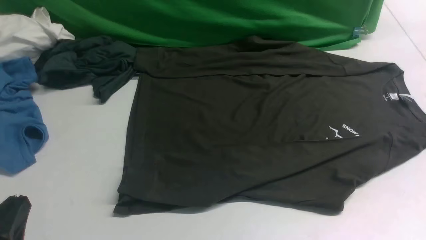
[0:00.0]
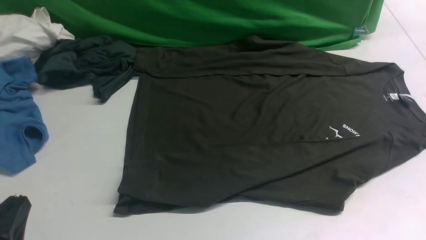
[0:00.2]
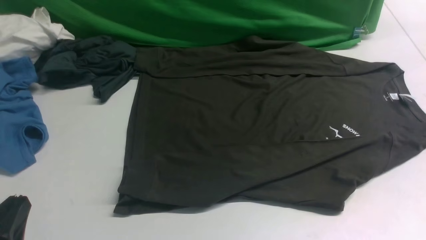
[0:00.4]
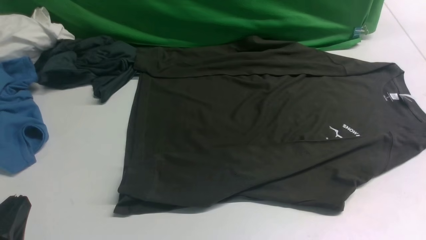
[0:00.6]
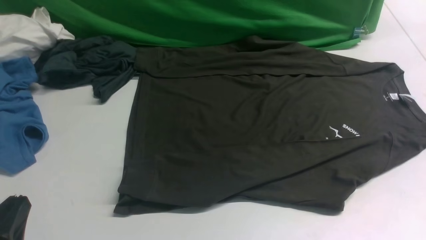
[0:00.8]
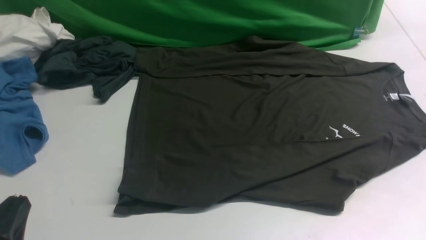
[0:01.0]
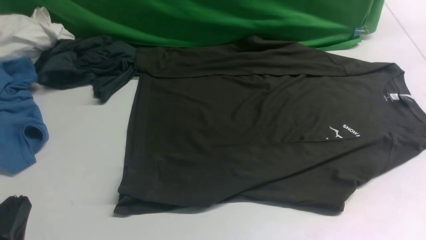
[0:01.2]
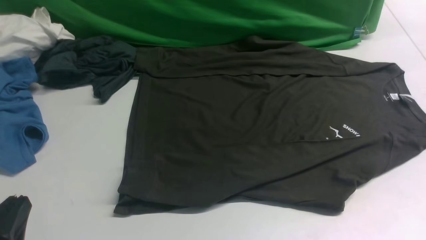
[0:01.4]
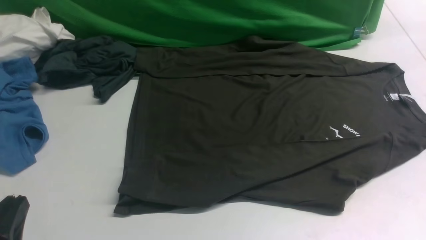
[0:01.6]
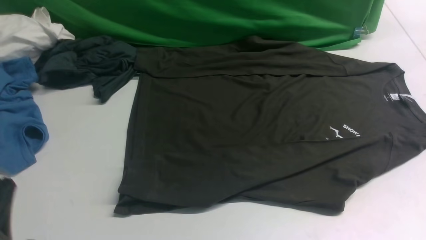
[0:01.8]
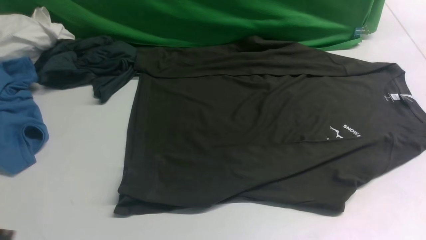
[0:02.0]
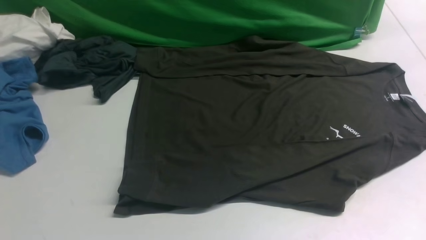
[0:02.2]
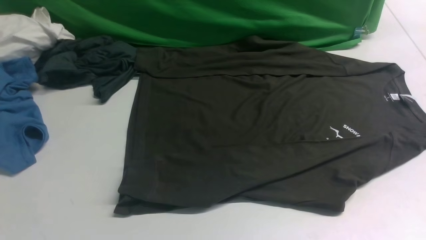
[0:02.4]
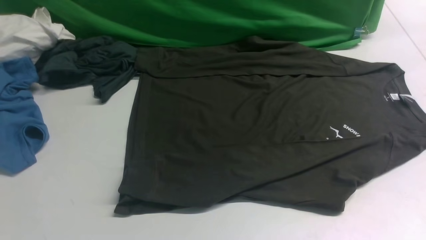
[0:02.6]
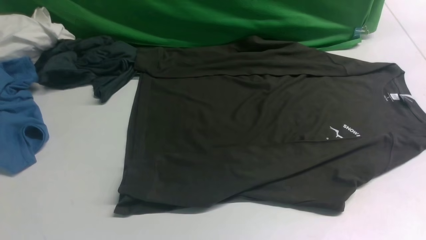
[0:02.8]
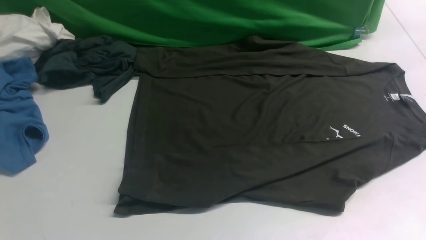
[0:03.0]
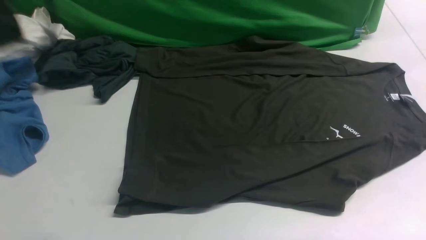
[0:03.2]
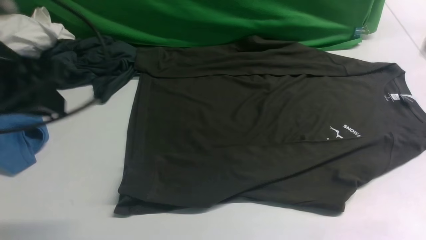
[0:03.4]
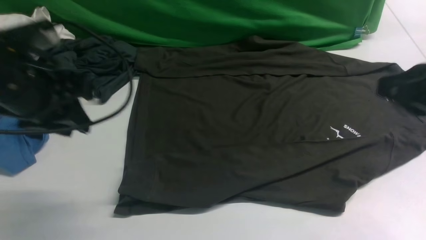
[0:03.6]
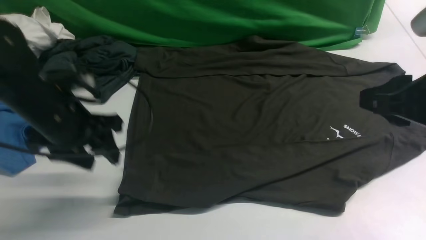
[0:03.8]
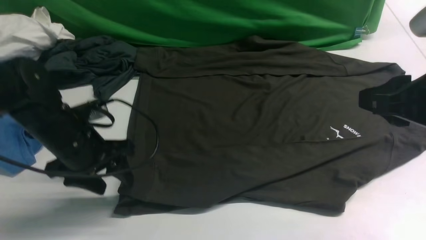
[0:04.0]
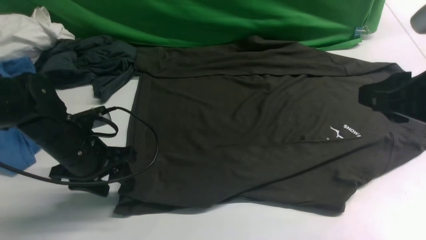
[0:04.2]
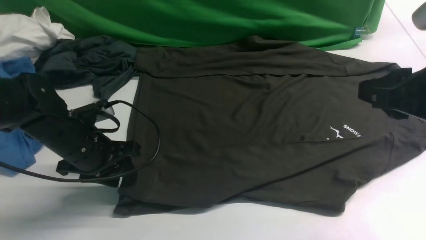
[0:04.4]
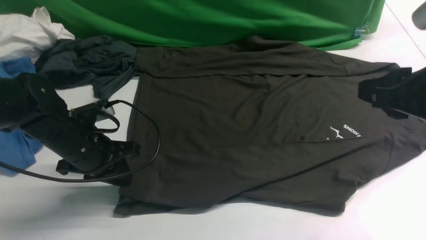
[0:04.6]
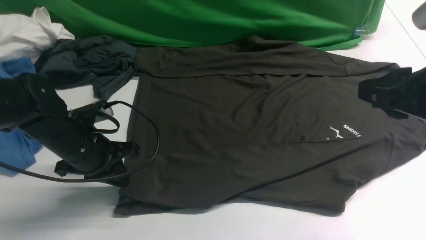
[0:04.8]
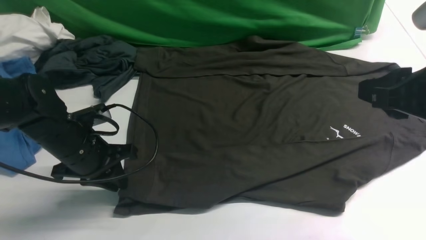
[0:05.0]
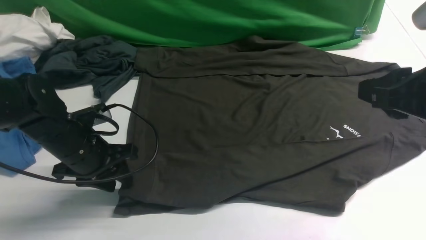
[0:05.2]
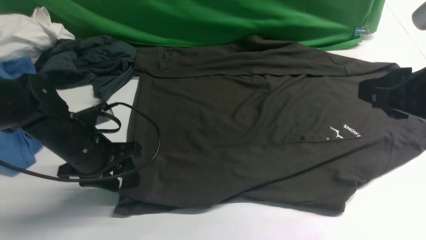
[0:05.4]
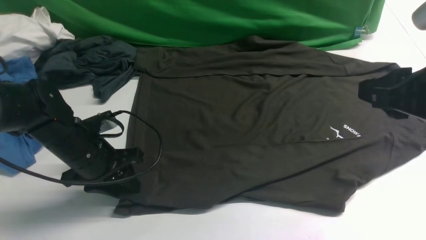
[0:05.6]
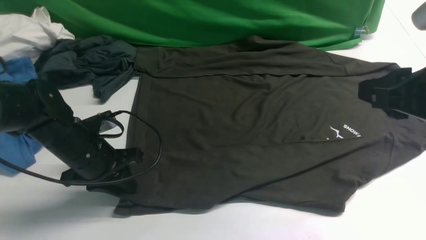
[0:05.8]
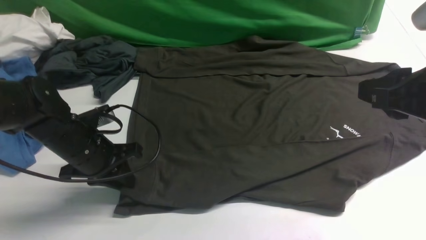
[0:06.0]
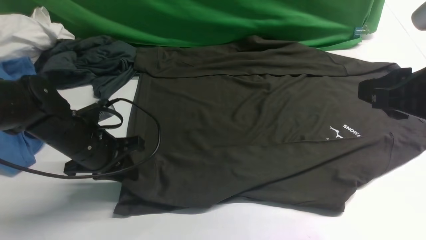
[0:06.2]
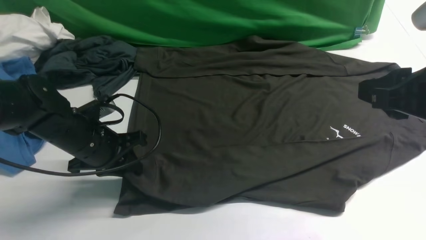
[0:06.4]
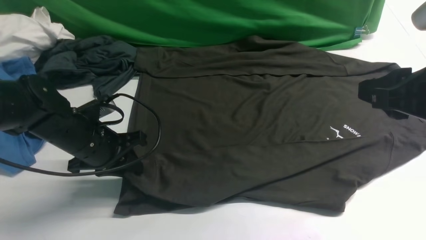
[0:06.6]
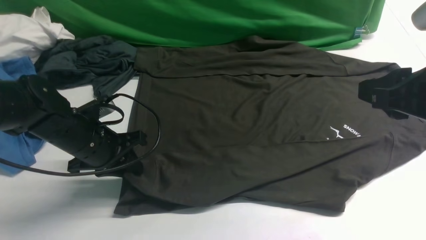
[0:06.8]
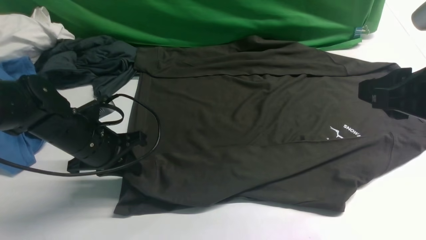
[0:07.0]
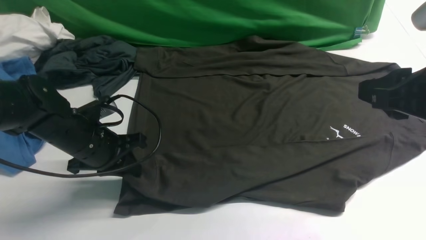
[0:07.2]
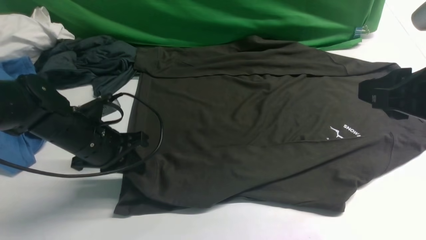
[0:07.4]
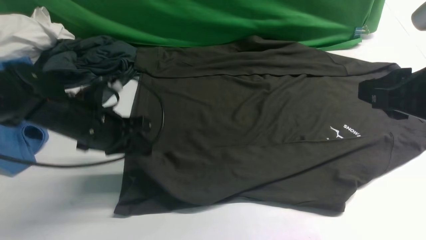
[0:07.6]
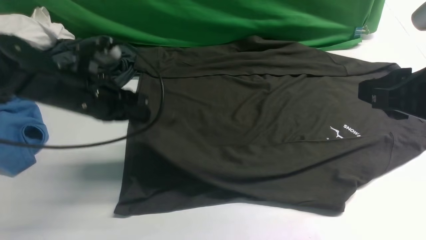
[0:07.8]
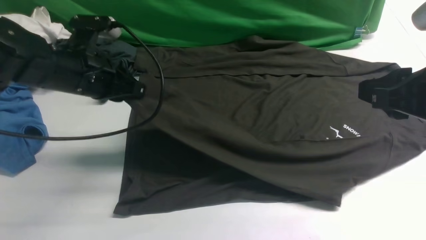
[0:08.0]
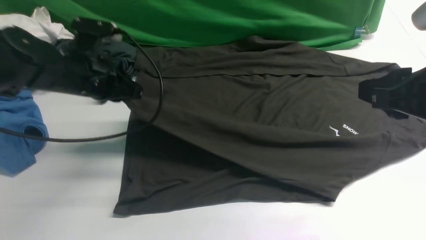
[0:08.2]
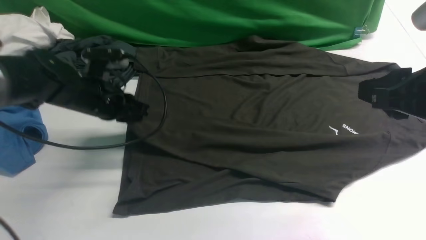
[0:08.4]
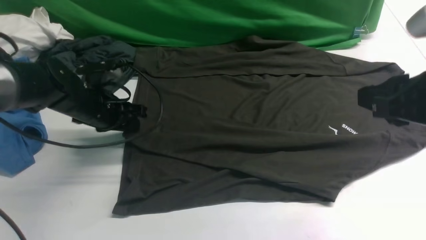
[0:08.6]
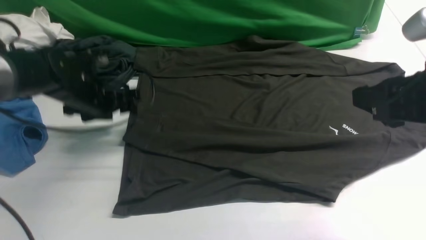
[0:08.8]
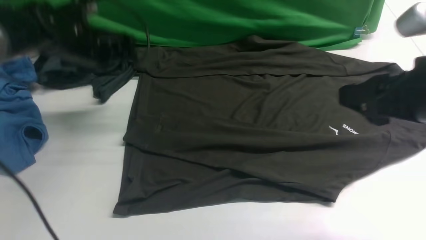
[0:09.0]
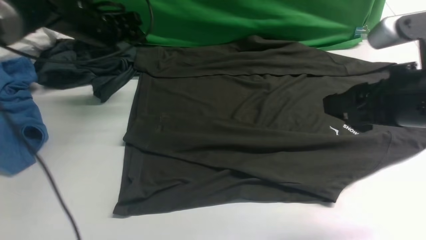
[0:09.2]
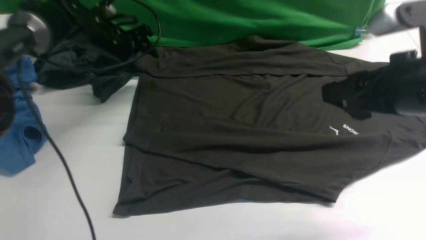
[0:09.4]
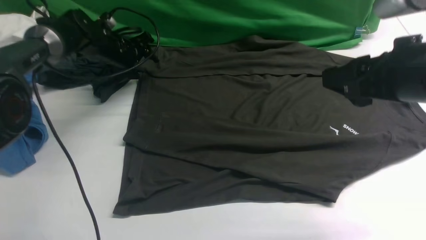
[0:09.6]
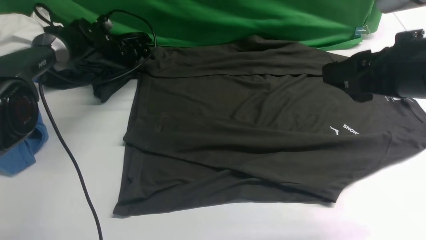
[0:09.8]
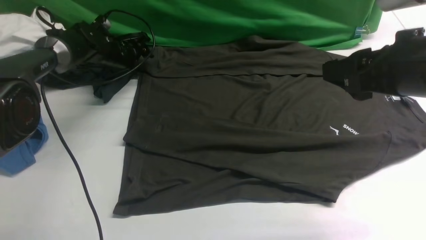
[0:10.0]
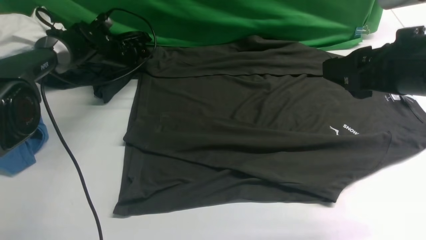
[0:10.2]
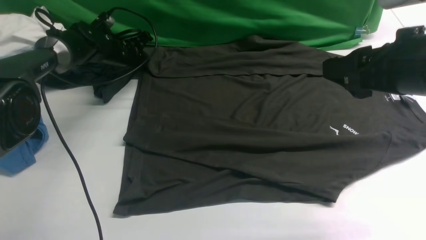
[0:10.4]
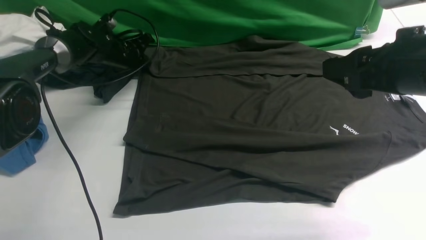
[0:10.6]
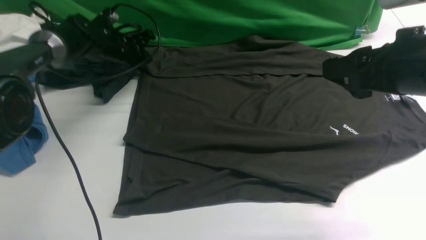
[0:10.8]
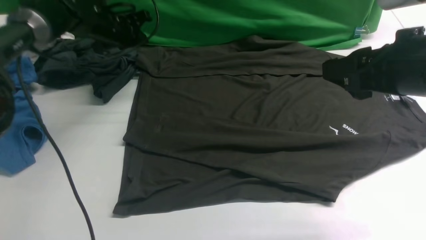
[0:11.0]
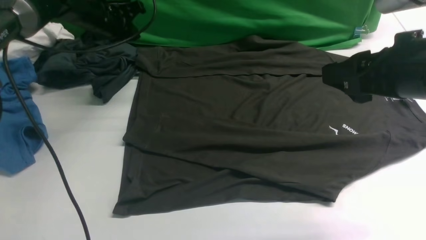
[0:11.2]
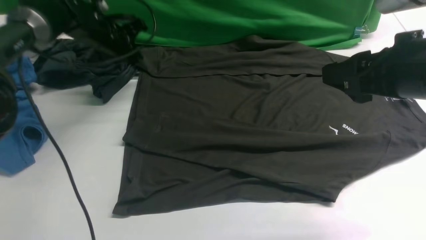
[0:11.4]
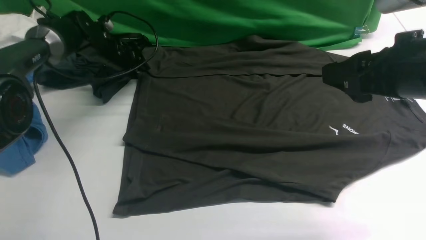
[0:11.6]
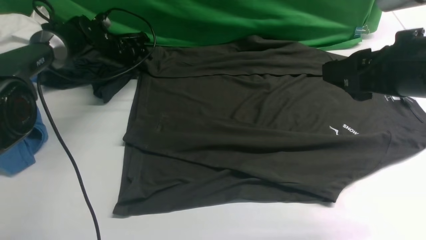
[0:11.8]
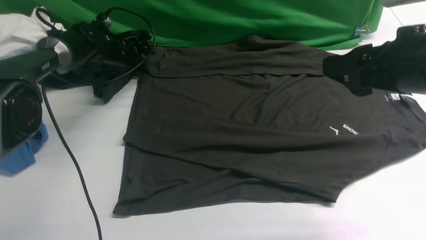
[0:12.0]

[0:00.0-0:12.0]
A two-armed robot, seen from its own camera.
Step, 0:00.0 to 0:07.4: use the left arm to clamp the cuff closest to it.
Step, 0:07.6 to 0:08.6: use the left arm to drag and place the cuff at the centered position on the left edge of the fabric.
0:01.6 to 0:03.0: The left gripper heads upward and forward, covering about 30 cm.
0:03.0 to 0:04.4: The right gripper travels downward, to the left and forward by some 15 cm. Meanwhile the left gripper moves downward and forward, some 30 cm.
0:04.4 to 0:06.0: The grippers make only small movements.
0:07.6 to 0:09.0: The right gripper opens its fingers. Meanwhile the left gripper travels forward by approximately 15 cm, and opens up.
0:09.0 to 0:10.4: The left gripper goes some 15 cm forward and downward, and closes up.
0:10.4 to 0:12.0: The left gripper moves about 10 cm upward and comes back, and opens its fingers.

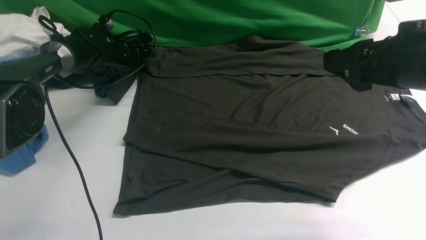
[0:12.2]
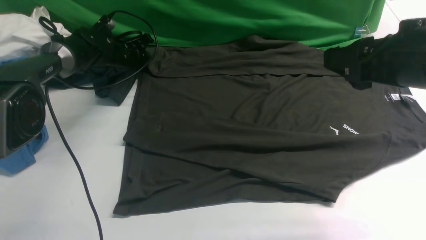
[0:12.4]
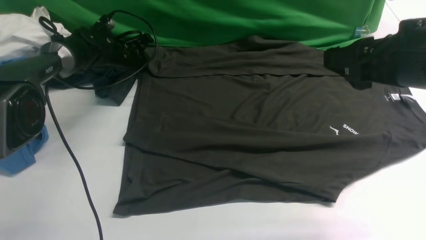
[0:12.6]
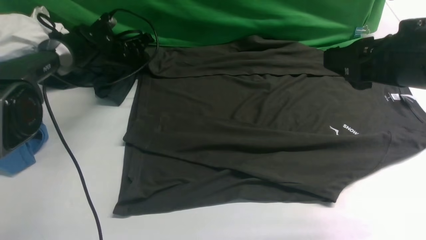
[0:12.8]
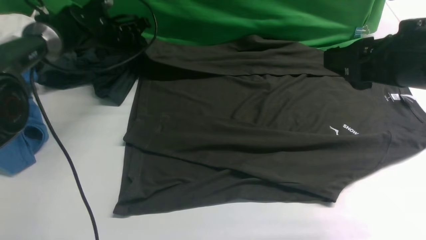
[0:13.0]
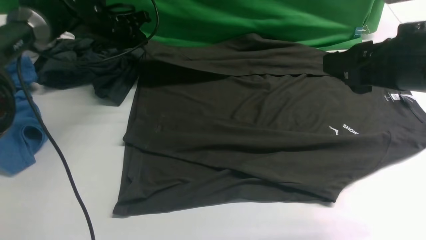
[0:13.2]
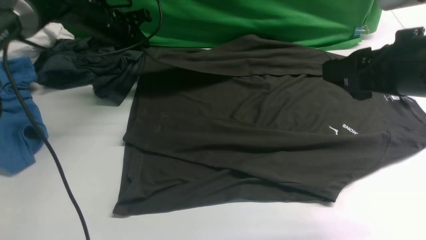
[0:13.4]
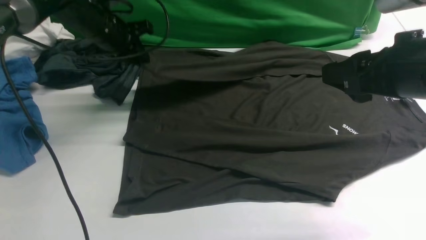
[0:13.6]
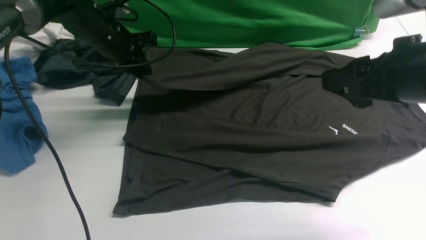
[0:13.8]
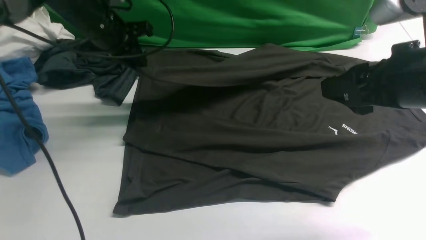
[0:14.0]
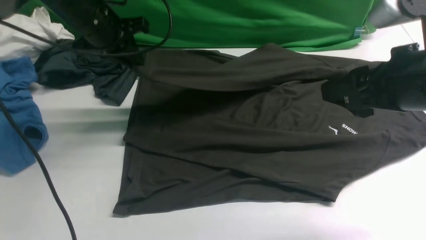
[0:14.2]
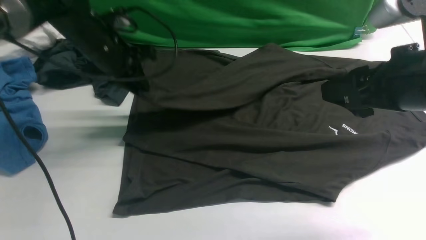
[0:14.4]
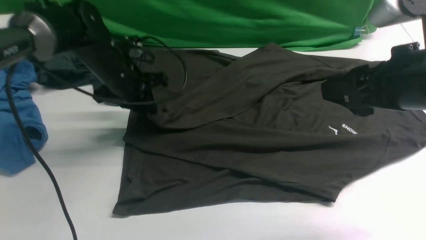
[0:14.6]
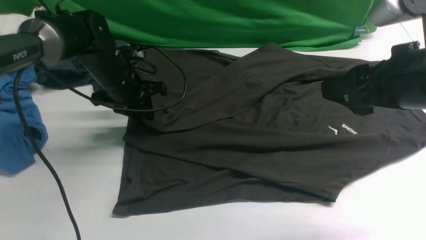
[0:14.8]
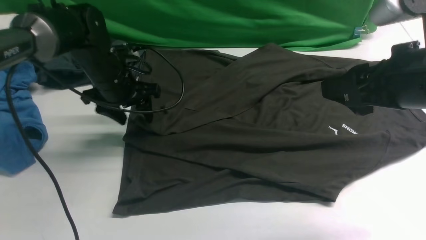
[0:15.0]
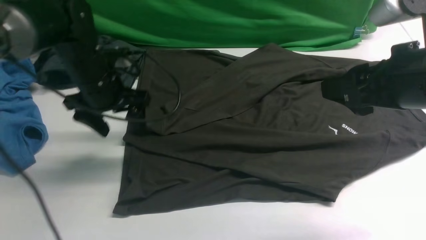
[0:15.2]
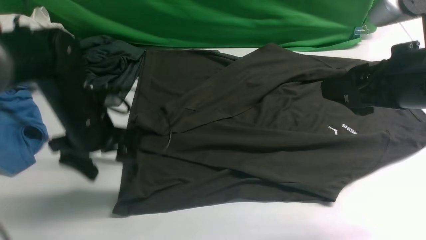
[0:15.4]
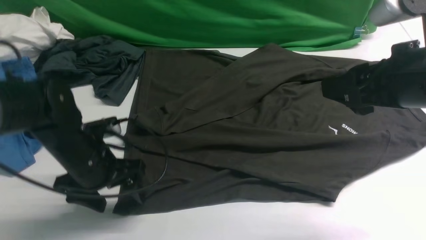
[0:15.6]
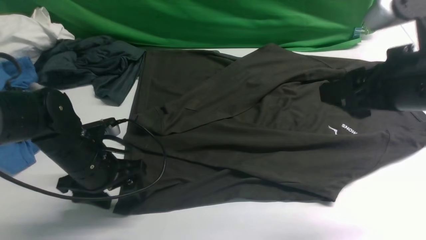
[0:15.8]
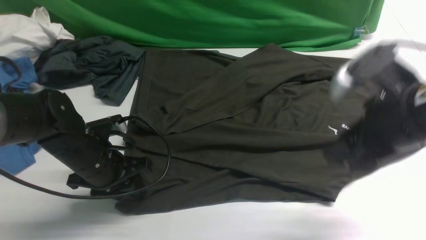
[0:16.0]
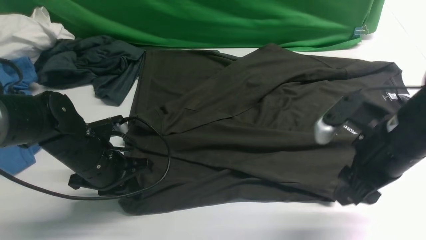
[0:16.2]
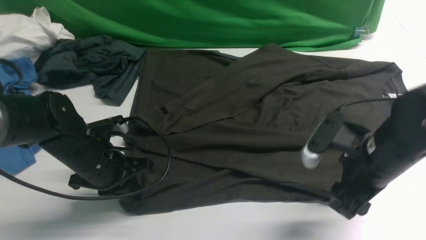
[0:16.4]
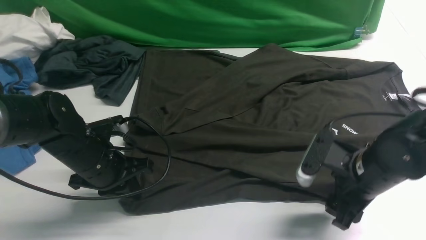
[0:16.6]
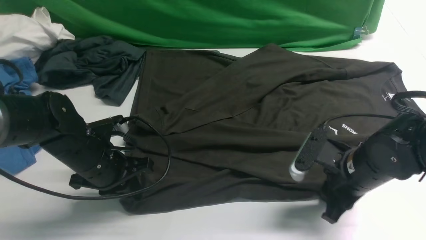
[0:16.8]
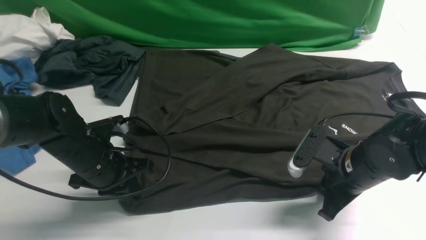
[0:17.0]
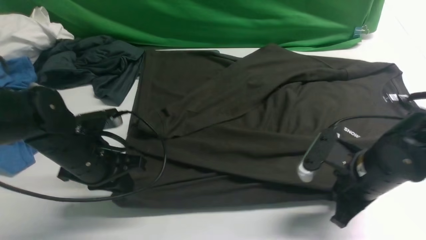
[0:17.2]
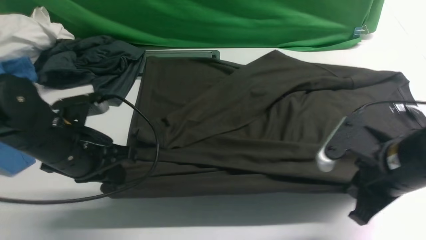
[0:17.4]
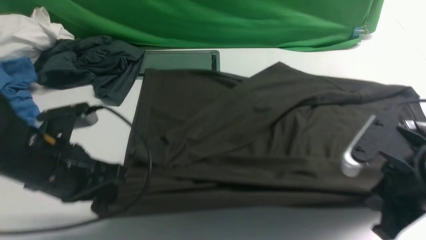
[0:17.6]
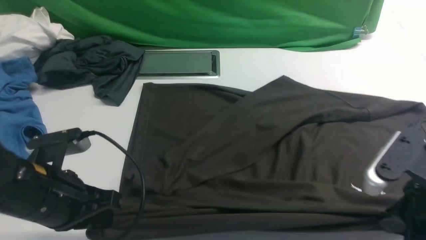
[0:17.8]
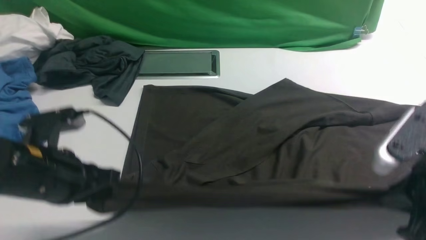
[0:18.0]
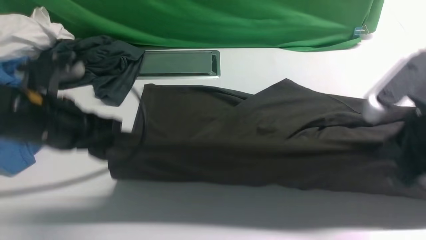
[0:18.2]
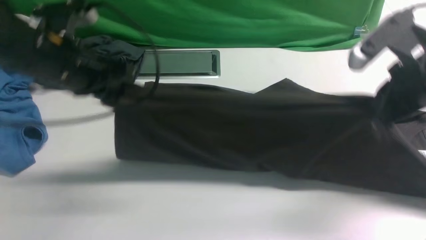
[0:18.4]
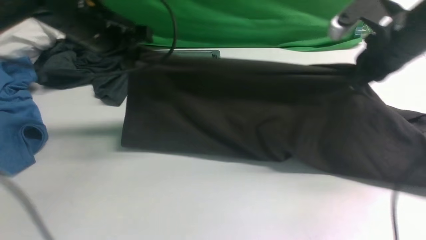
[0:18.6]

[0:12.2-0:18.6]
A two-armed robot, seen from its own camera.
Step, 0:13.0 to 0:15.0: use the left arm to drag and drop the cuff onto the cuff closest to the left arm.
Step, 0:15.2 to 0:17.2: use both arms simultaneously to clamp the lower edge of the clothing fabric.
0:12.2 to 0:13.8: The left gripper travels upward and backward by some 15 cm, and closes its fingers.
0:13.8 to 0:15.4: The left gripper goes about 15 cm backward, and opens its fingers.
0:15.4 to 0:17.0: The left gripper changes place by approximately 5 cm, and closes, while the right gripper travels downward by about 20 cm, and closes its fingers.
0:17.0 to 0:18.6: The left gripper moves forward and upward, some 20 cm. The right gripper shifts approximately 20 cm upward and forward.
